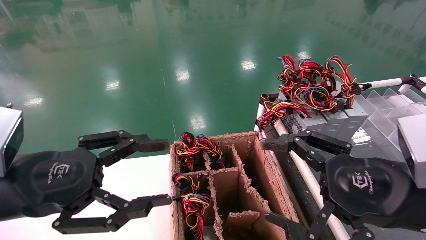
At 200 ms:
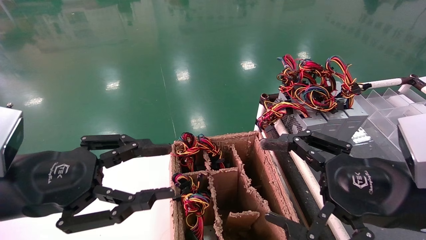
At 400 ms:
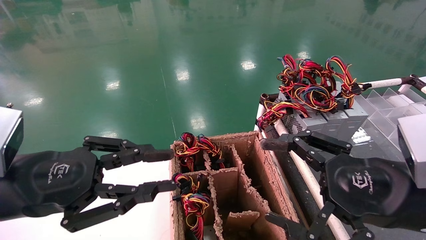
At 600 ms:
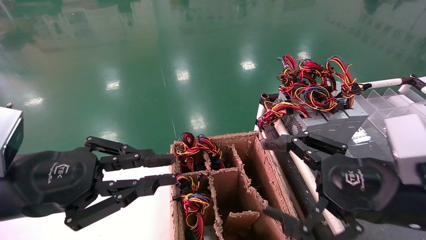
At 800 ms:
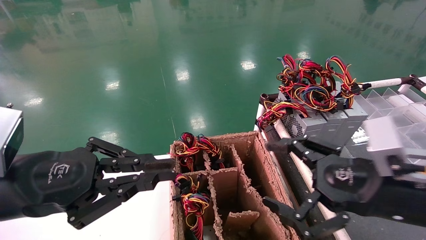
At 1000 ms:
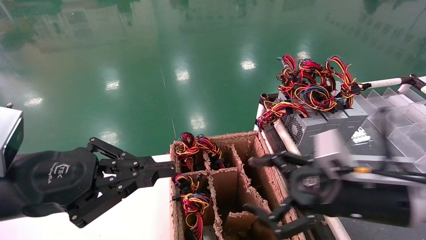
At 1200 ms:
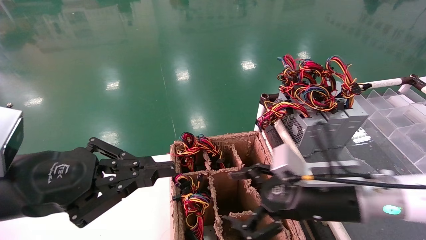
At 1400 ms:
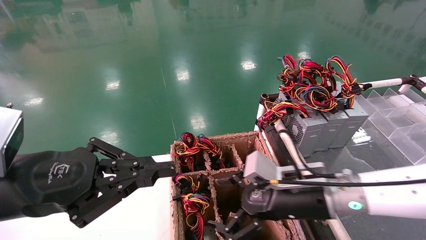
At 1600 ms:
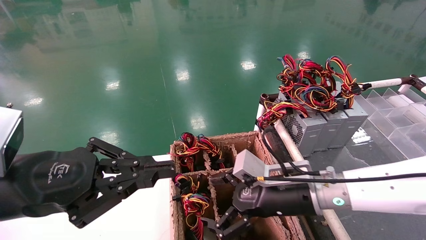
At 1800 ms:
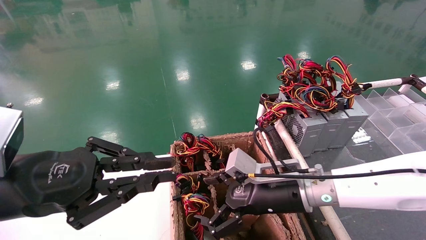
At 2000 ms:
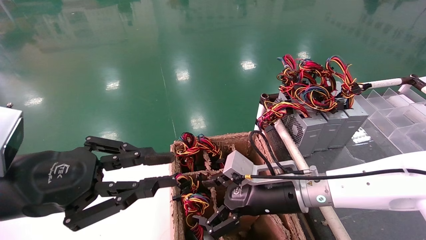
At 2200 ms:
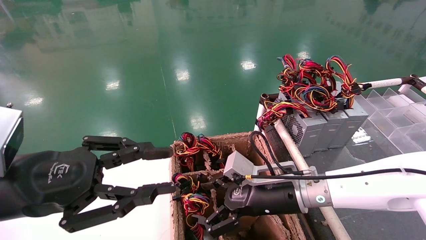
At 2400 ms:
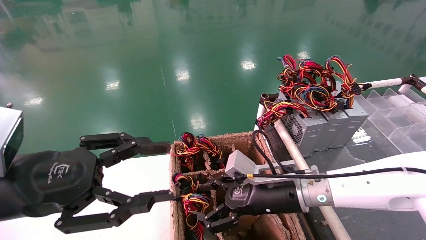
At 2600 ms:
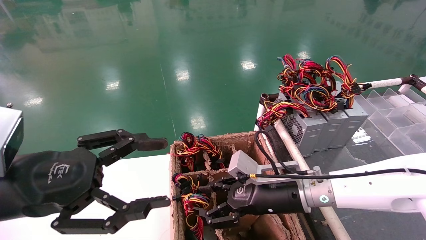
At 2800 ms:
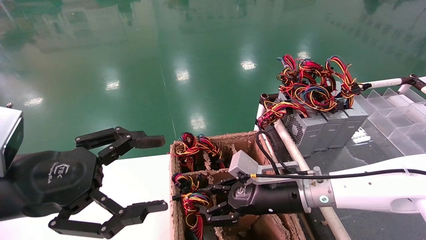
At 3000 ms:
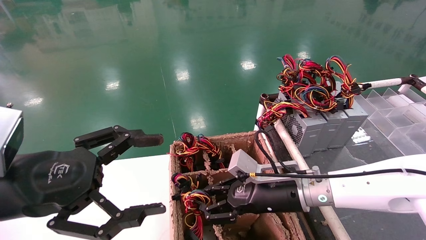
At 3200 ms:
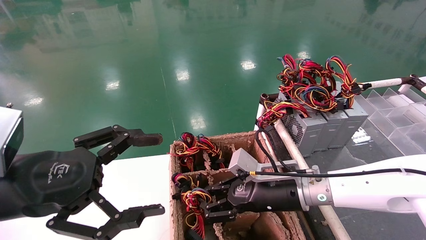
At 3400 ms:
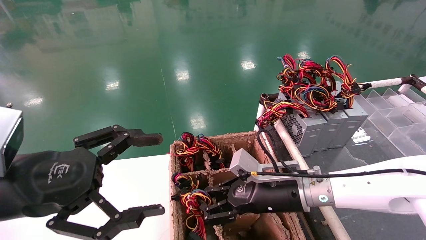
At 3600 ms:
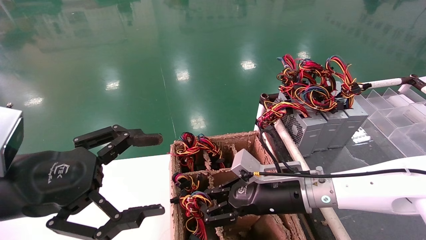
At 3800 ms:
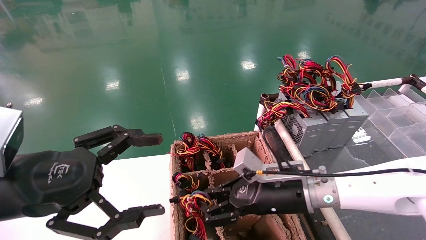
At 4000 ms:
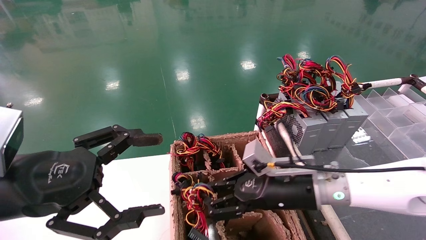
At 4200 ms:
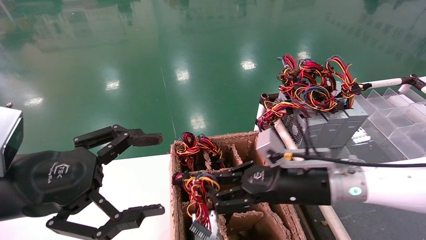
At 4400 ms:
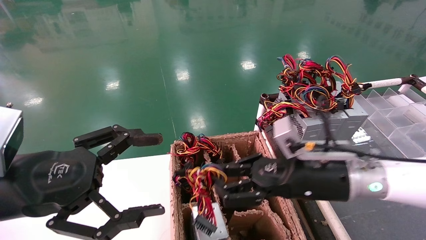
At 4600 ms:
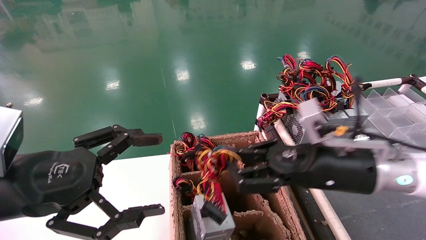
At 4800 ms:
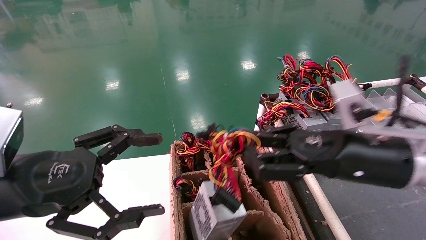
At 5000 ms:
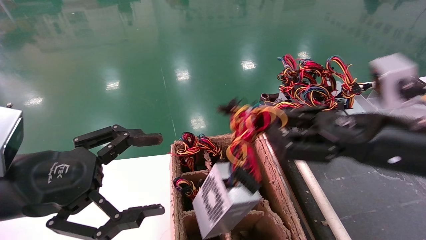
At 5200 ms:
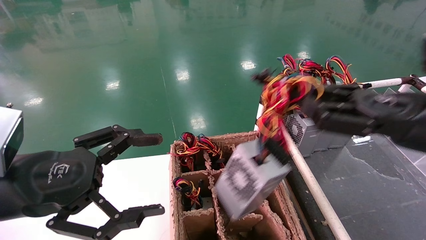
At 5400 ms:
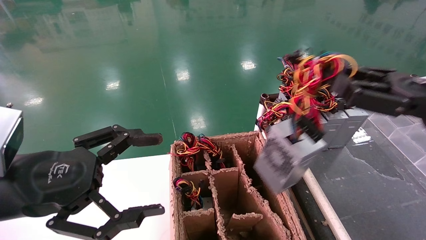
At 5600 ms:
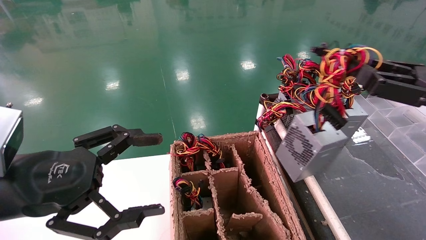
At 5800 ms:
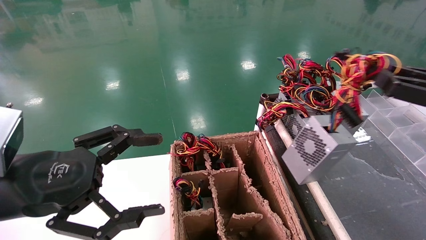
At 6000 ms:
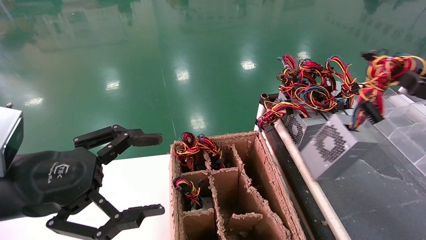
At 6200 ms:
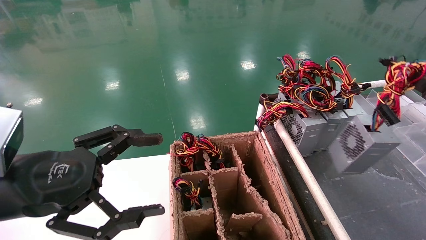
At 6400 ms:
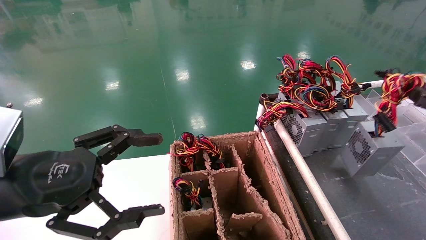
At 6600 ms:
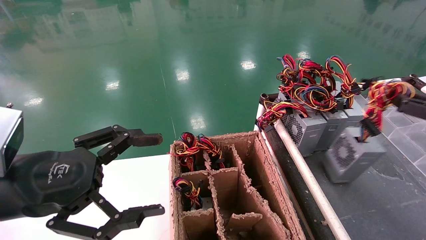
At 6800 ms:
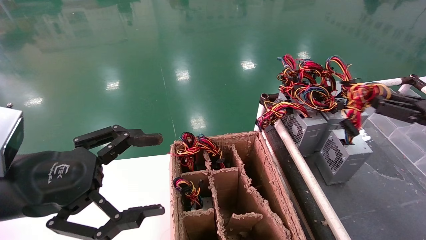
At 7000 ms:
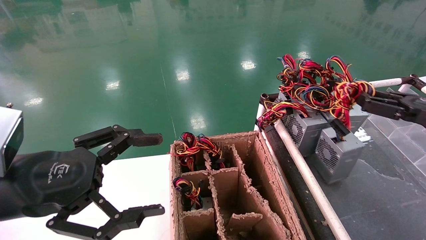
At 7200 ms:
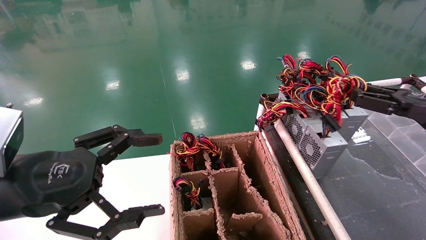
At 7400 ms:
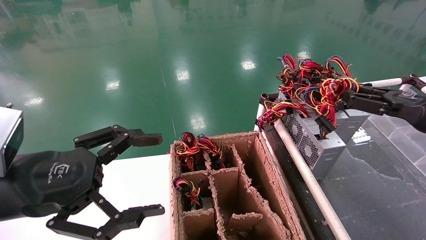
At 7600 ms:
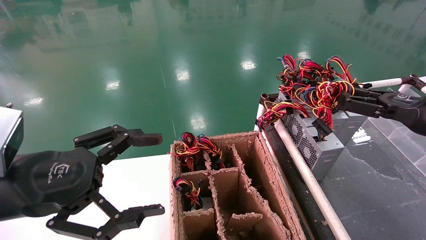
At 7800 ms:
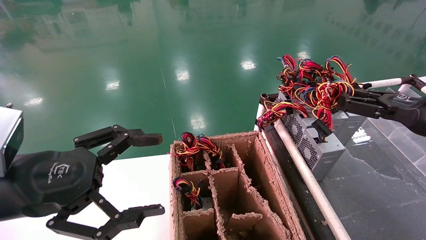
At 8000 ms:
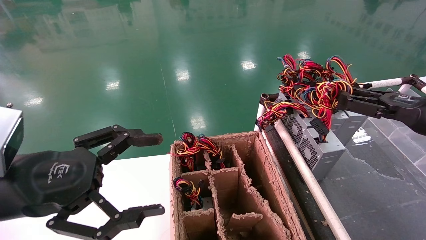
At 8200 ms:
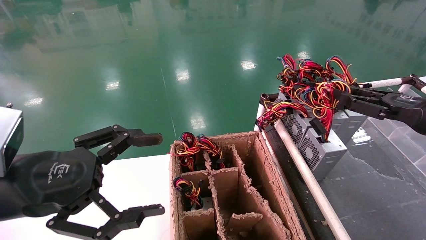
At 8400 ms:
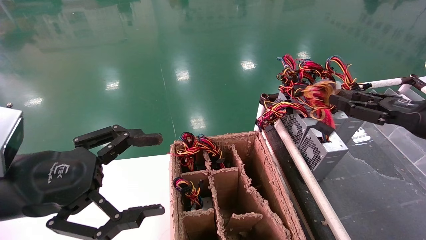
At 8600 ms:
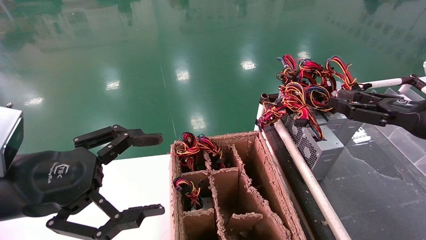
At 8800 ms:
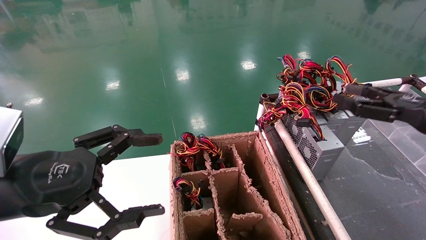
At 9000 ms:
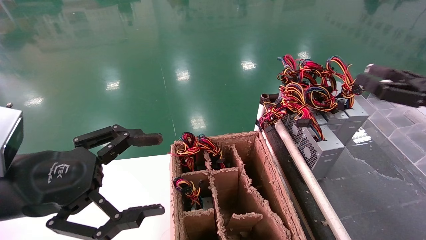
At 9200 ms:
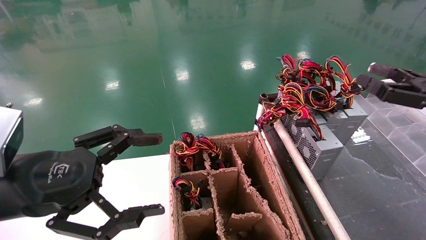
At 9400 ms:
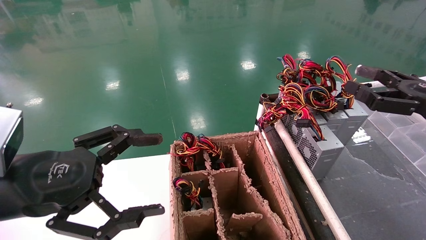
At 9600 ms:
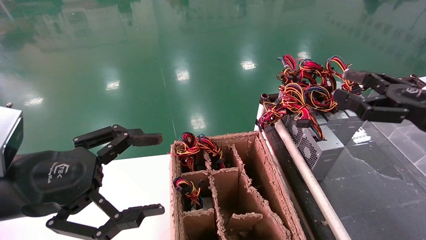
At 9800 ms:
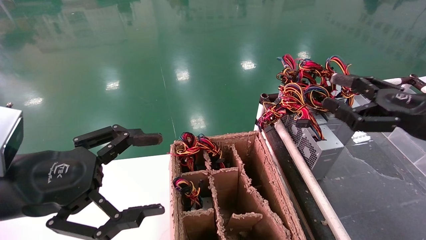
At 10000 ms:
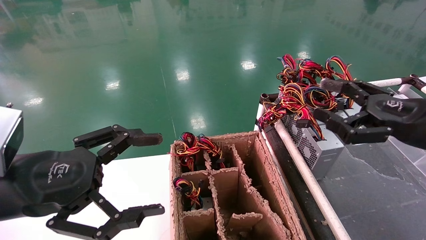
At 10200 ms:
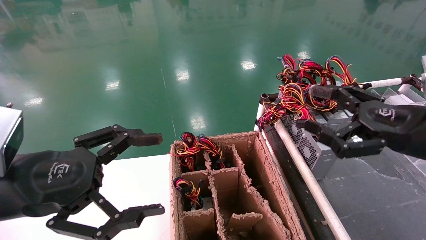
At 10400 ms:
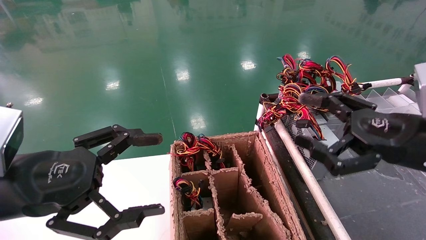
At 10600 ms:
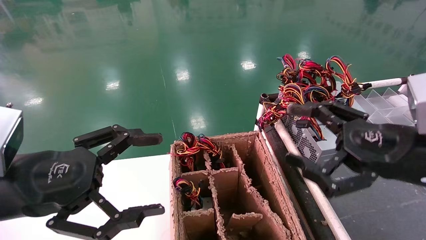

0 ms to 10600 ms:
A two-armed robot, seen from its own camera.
Step, 1000 ms to 3200 ms: Grab and lift the power supply from the large box.
Step, 3400 ms to 8400 ms: Place the power supply on the operating table.
0 ms to 1600 ms: The right gripper travels forward, to the left and downward by roughly 20 cm. The left gripper closes.
1600 ms to 3000 ms: The left gripper opens its fingers, while the right gripper closes its fingers.
3000 ms to 4600 ms: The right gripper travels upward, to the right and backward by approximately 15 cm.
4600 ms to 6000 ms: The right gripper goes about 25 cm to the right.
6000 ms to 7600 ms: The right gripper shifts roughly 5 cm forward.
7600 ms to 9000 ms: The right gripper opens up.
9000 ms to 10600 ms: The right gripper shifts about 15 cm to the left and backward.
